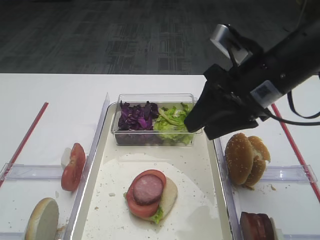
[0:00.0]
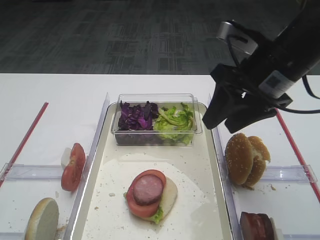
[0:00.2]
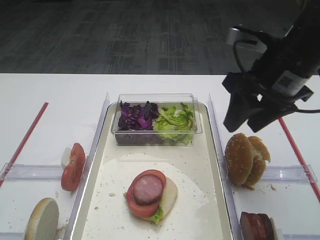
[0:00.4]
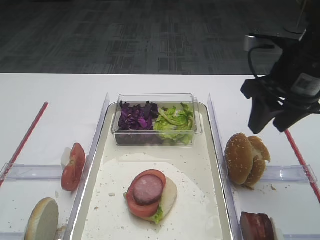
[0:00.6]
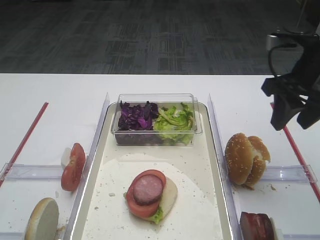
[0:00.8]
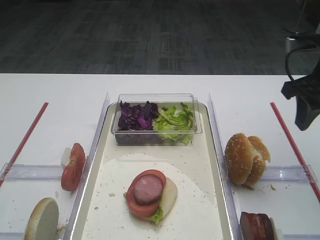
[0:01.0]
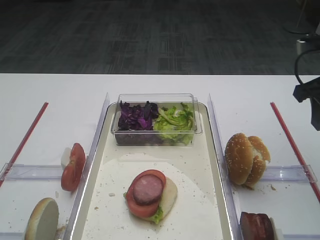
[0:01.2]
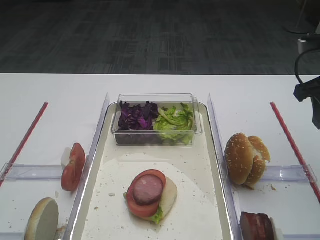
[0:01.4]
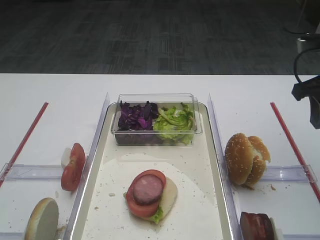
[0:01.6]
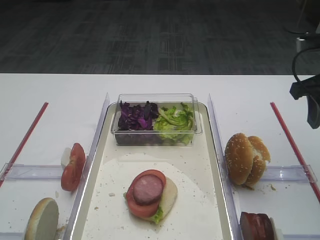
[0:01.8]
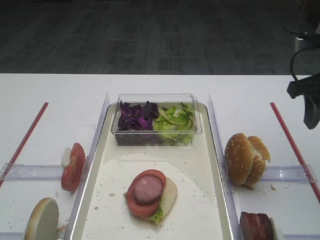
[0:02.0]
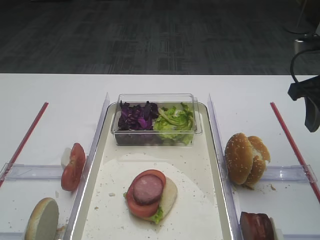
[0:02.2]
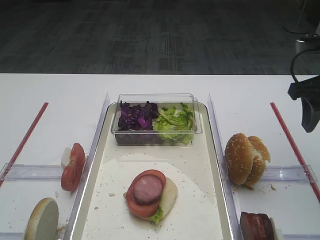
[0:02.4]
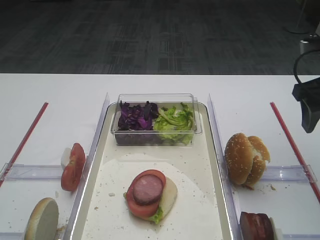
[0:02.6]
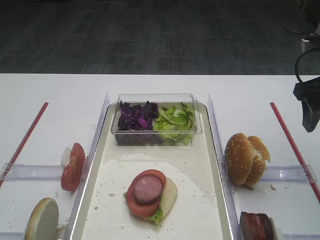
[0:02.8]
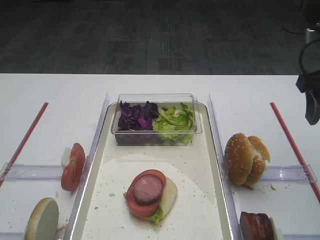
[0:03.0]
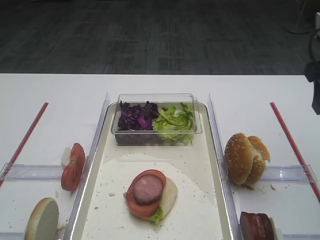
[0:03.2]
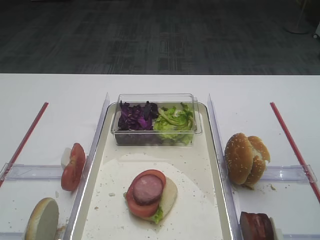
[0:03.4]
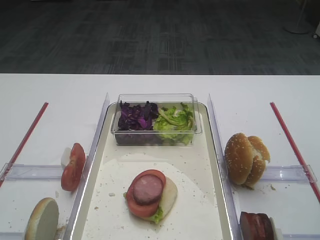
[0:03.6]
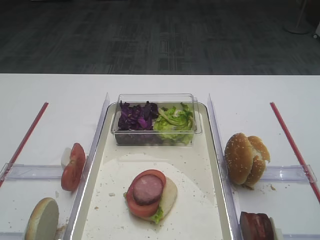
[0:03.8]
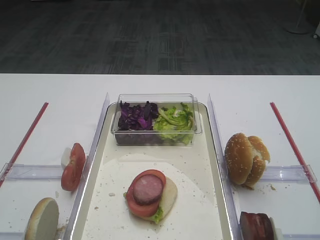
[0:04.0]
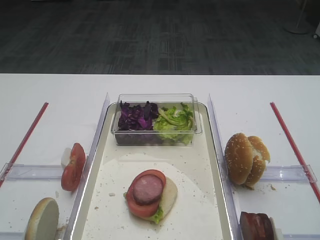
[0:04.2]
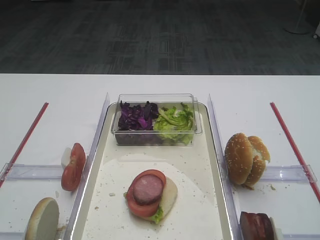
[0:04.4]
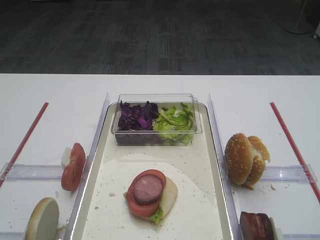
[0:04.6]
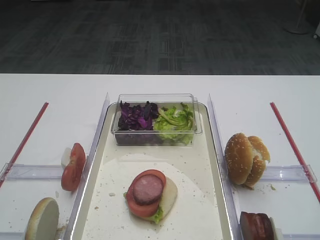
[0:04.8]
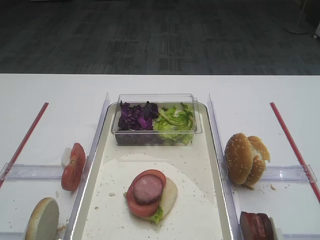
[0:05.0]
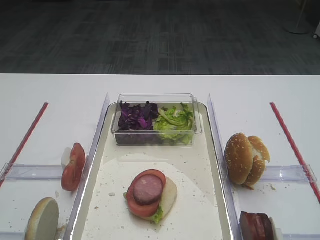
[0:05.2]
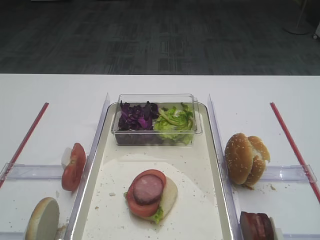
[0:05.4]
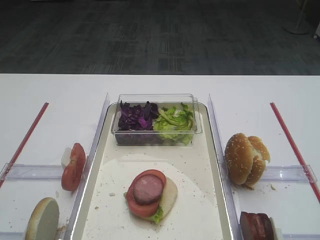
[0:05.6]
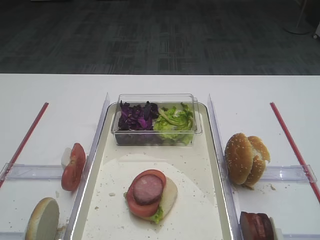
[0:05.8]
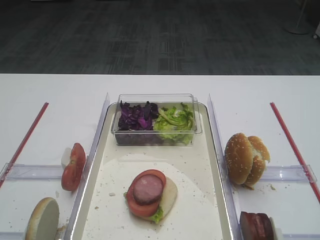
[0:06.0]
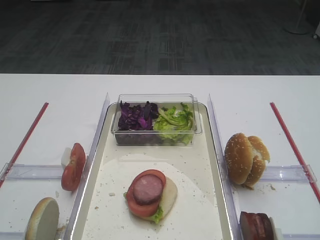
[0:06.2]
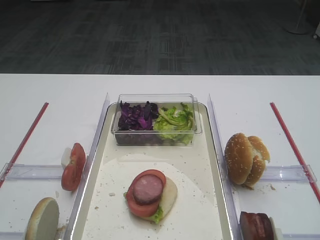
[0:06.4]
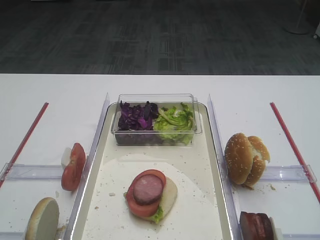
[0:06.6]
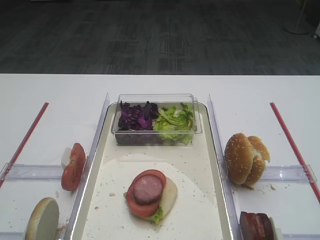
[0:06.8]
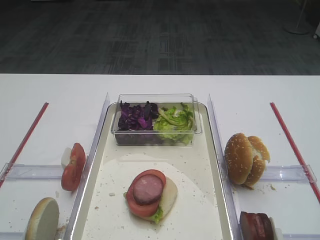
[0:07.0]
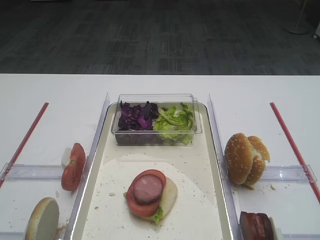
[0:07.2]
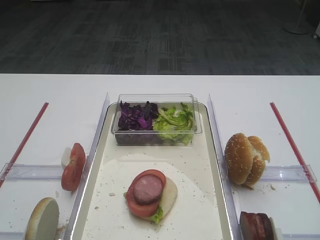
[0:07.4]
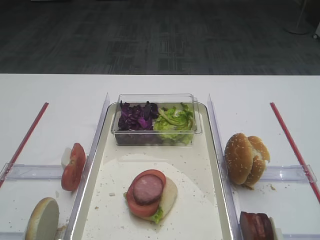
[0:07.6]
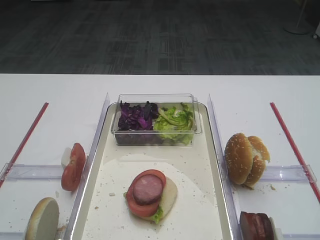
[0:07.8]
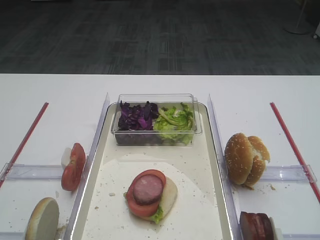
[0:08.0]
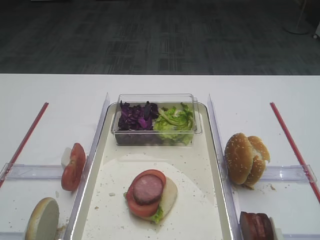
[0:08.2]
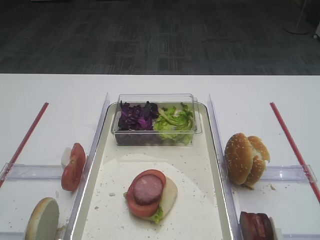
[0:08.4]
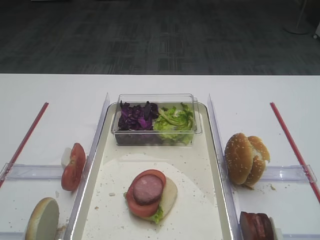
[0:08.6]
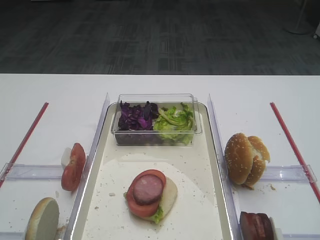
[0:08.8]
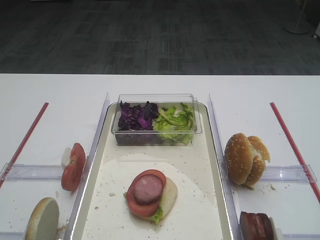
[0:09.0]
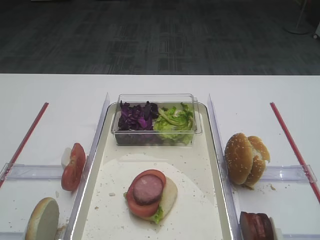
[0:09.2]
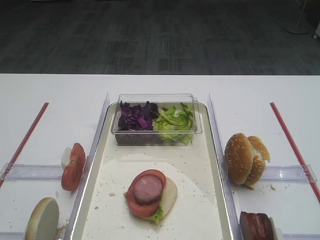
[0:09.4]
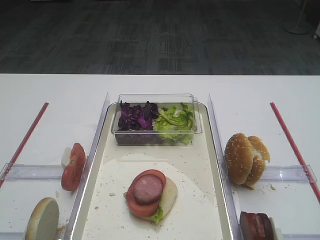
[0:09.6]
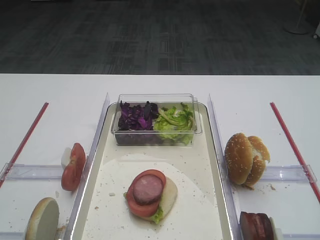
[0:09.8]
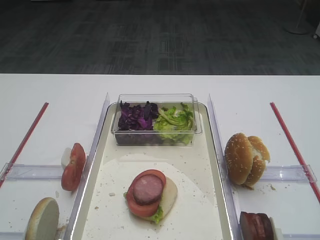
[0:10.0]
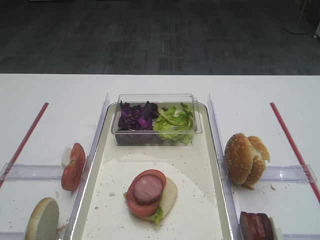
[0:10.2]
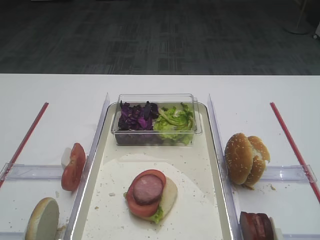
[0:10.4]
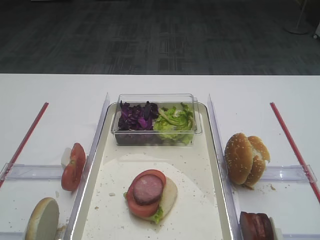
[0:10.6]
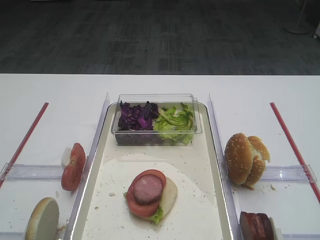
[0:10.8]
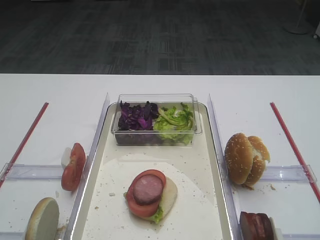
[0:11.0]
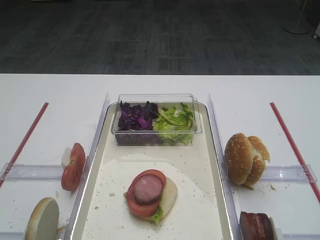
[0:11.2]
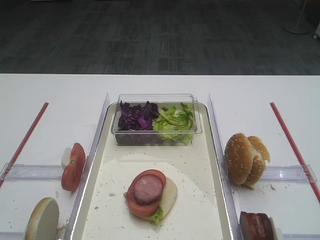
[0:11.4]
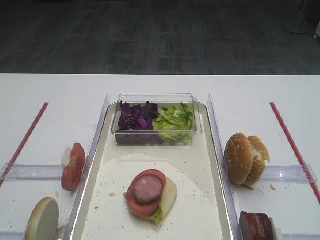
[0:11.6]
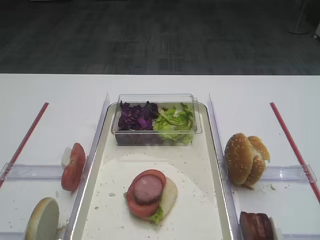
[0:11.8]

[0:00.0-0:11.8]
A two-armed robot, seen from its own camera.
0:00.0 to 0:01.4: The right gripper is displaced to the right by about 15 cm.
0:01.4 to 0:03.0: The grippers move only a little.
0:03.0 to 0:04.4: The right gripper moves backward and upward, approximately 25 cm.
0:06.0 to 0:11.8: Neither gripper changes place.

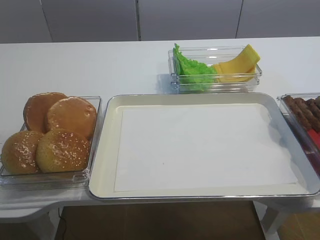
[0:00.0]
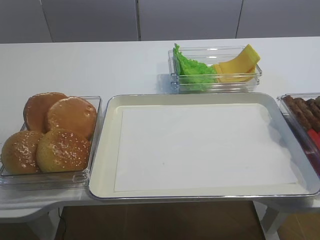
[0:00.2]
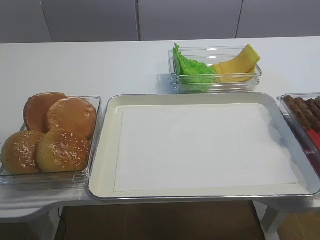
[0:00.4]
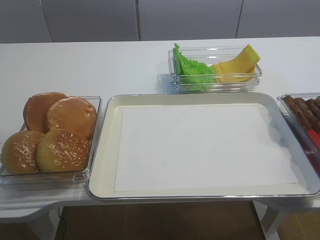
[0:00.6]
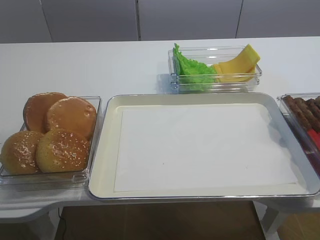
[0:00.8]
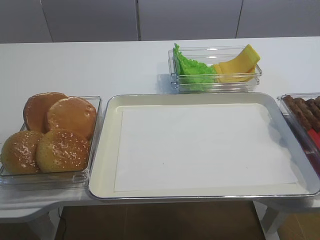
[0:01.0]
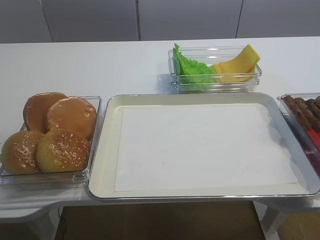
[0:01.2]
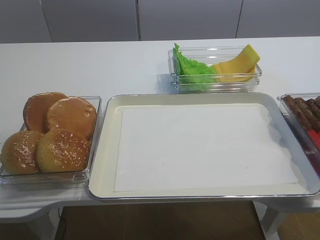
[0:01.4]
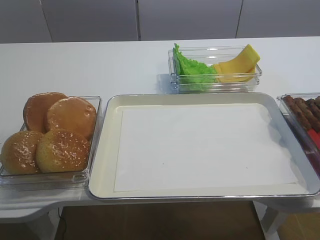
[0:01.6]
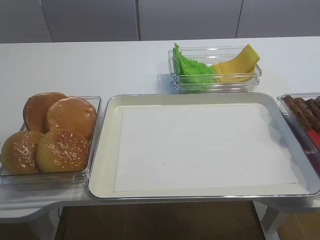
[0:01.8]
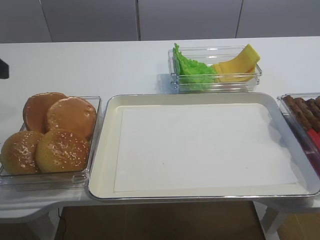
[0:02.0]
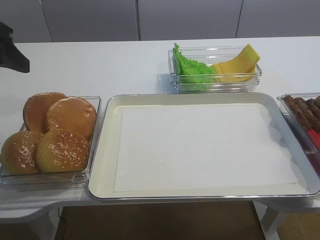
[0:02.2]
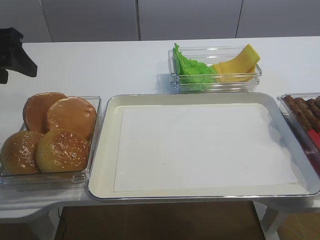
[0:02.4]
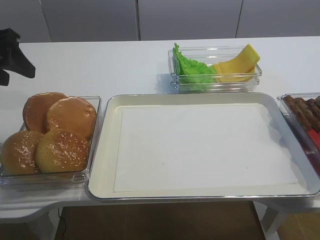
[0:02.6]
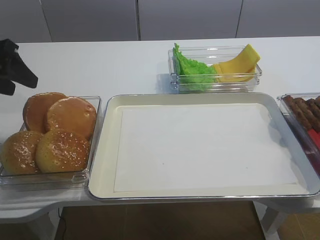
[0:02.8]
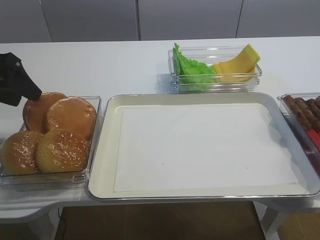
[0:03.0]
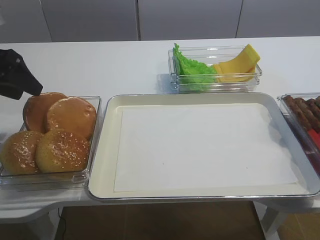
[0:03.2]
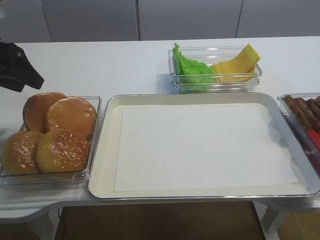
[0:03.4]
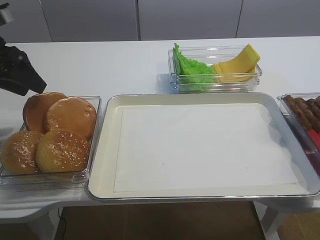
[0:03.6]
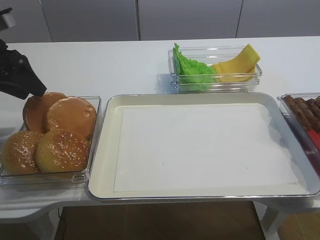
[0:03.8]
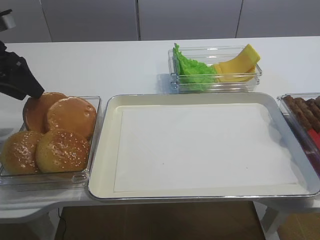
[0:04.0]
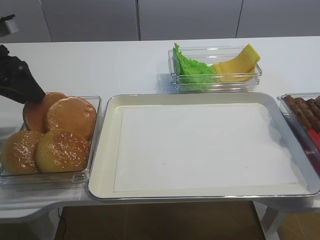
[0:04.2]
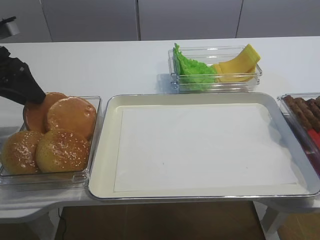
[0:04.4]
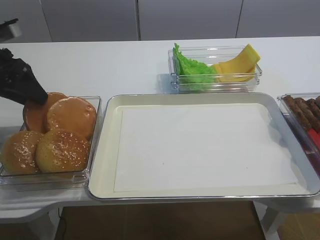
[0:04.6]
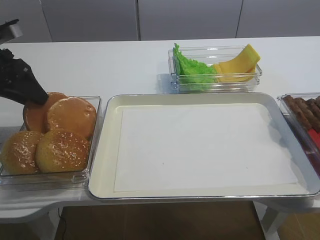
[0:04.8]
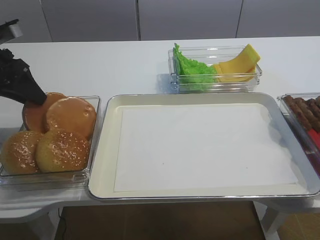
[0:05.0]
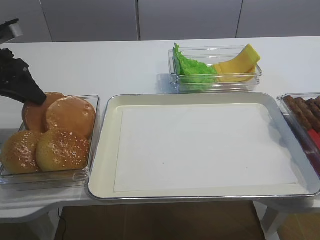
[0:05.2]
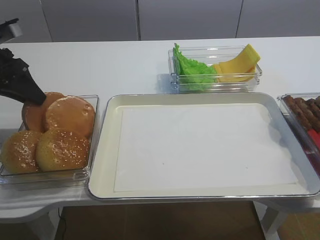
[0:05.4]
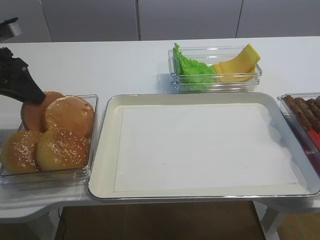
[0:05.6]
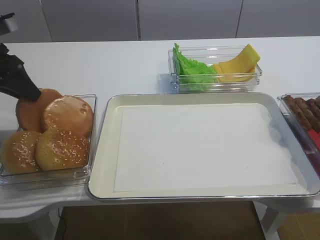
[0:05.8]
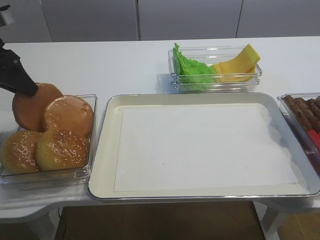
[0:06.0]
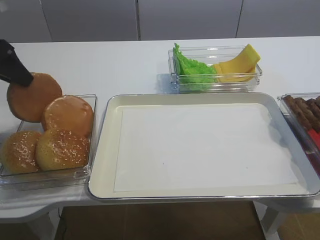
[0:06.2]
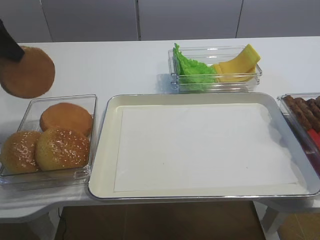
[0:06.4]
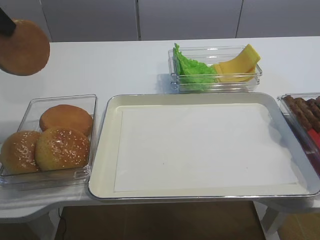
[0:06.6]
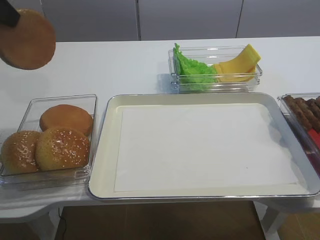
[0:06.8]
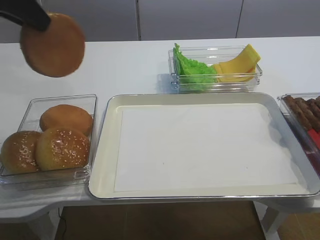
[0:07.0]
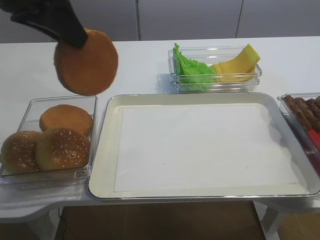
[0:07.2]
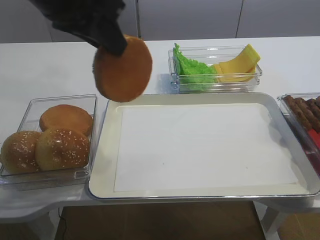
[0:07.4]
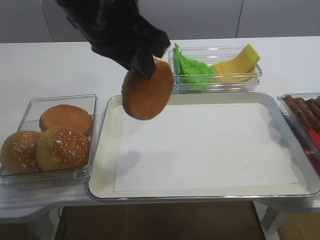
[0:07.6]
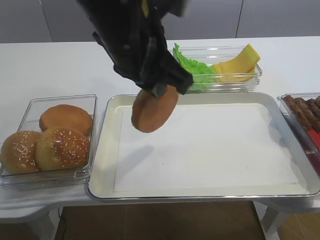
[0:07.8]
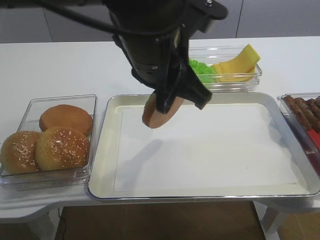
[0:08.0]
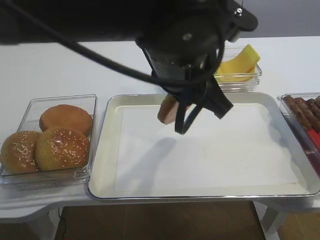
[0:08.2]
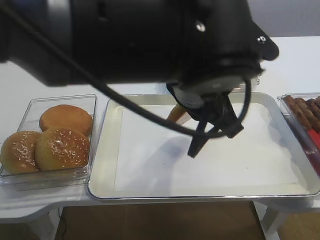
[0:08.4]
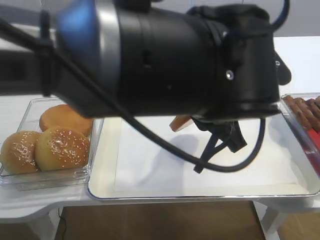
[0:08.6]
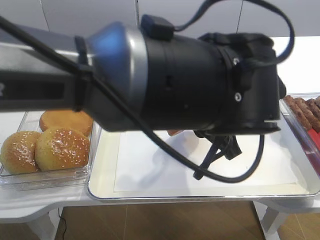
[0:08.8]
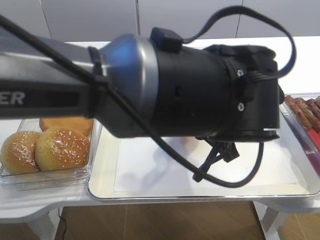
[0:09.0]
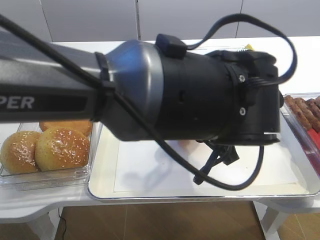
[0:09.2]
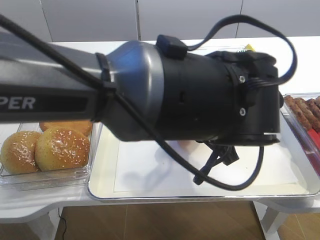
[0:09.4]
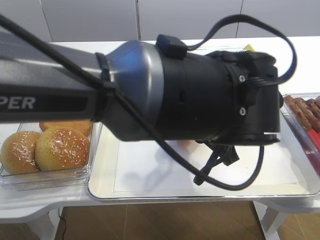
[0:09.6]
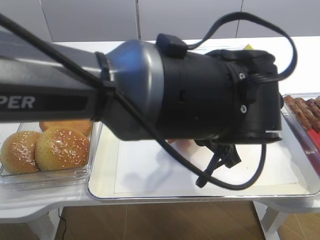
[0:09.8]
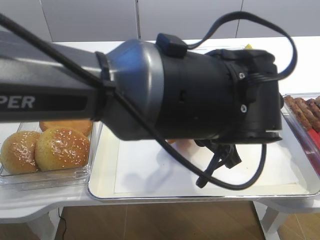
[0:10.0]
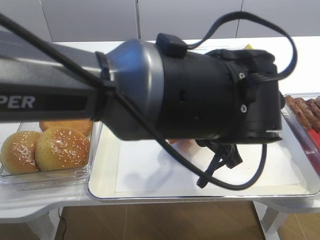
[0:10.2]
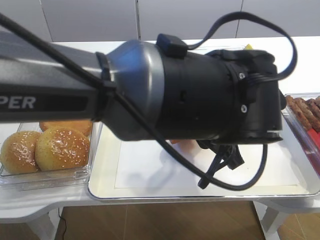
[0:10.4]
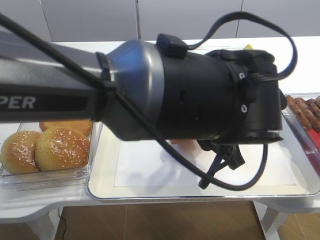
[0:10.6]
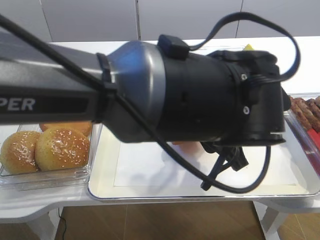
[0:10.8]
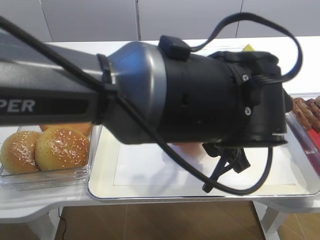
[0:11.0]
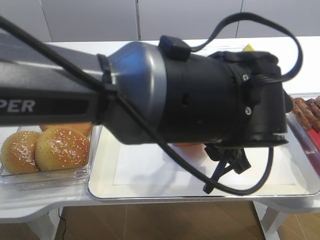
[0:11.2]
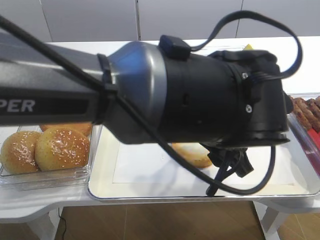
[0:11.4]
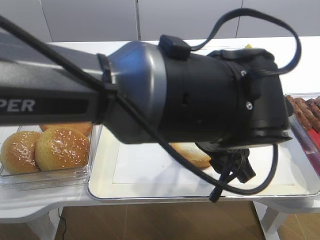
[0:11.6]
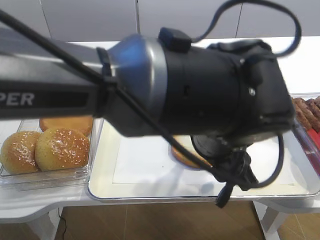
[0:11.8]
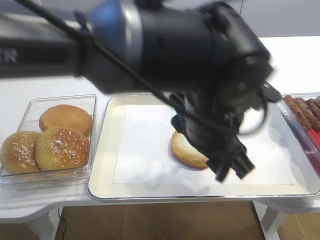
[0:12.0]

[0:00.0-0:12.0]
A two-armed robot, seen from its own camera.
Step, 0:00.0 to 0:06.0: Pick up the bread slice with the left gripper.
Step, 0:06.2 to 0:12.0: Place the bread slice on the tray with the left gripper.
0:01.6 to 0:03.0: The left gripper goes approximately 20 cm forward.
0:03.0 to 0:04.4: The grippers make only small movements.
0:04.4 to 0:06.0: The left gripper closes up.
0:06.0 to 0:07.6: The left gripper moves to the right and upward, roughly 25 cm.
0:07.6 to 0:09.0: The left gripper goes approximately 20 cm to the right and downward.
0:09.0 to 0:10.4: The two grippers keep their place.
0:10.4 to 0:12.0: The left gripper opens up.
